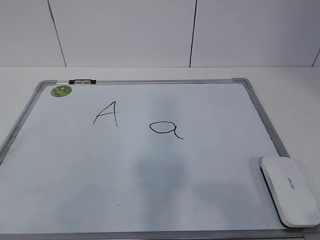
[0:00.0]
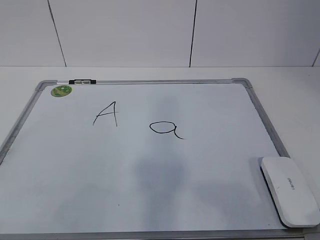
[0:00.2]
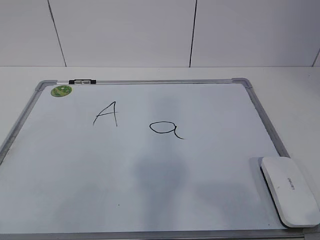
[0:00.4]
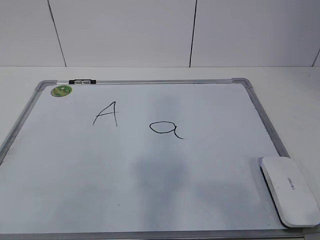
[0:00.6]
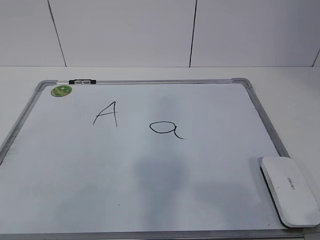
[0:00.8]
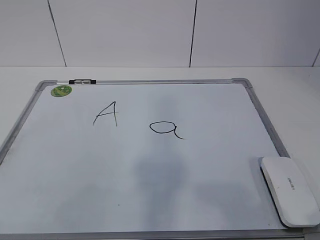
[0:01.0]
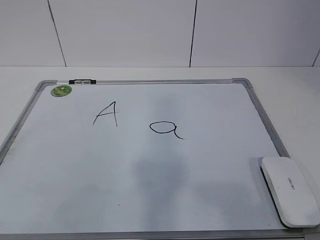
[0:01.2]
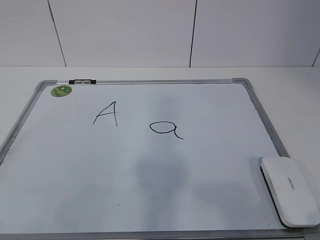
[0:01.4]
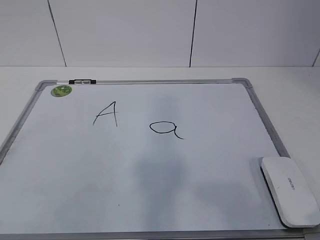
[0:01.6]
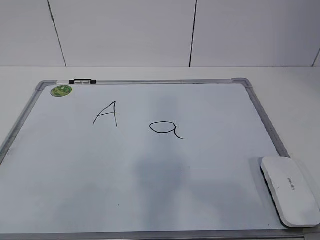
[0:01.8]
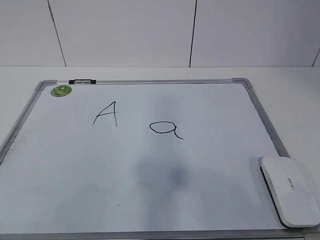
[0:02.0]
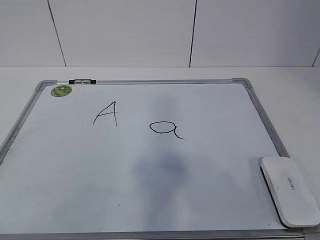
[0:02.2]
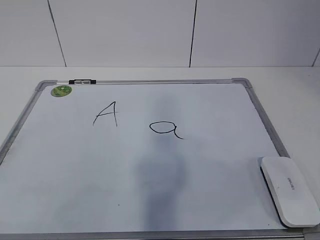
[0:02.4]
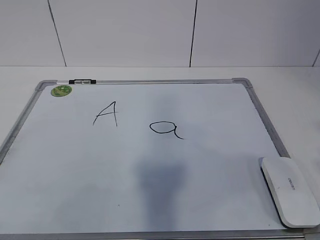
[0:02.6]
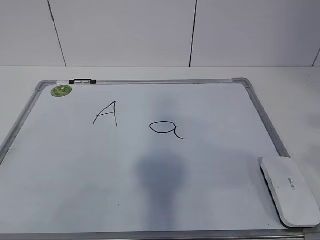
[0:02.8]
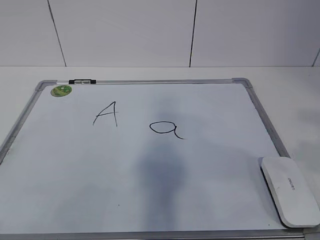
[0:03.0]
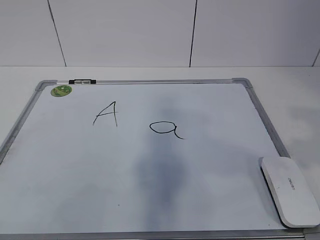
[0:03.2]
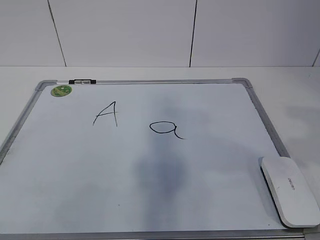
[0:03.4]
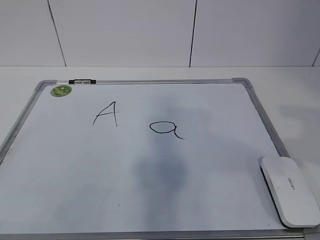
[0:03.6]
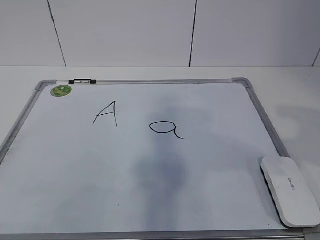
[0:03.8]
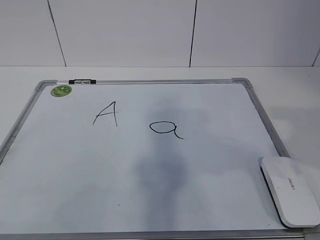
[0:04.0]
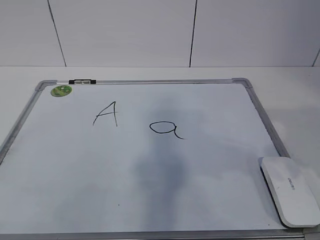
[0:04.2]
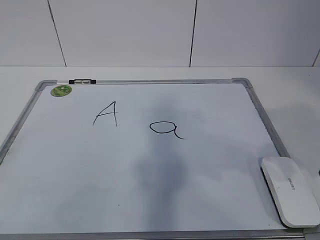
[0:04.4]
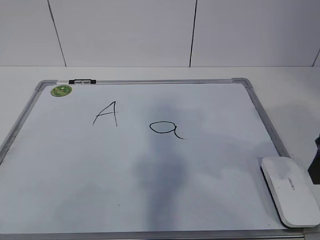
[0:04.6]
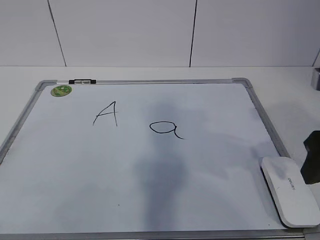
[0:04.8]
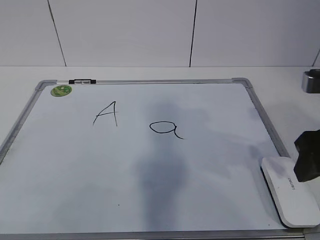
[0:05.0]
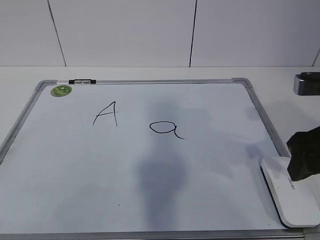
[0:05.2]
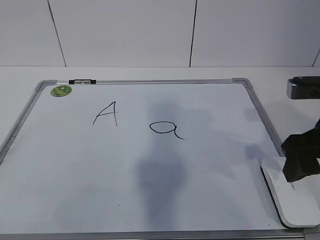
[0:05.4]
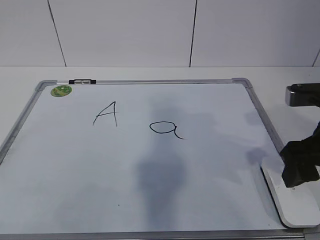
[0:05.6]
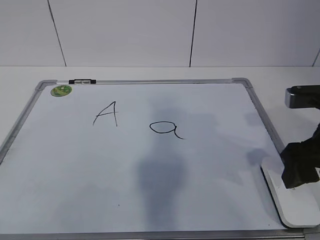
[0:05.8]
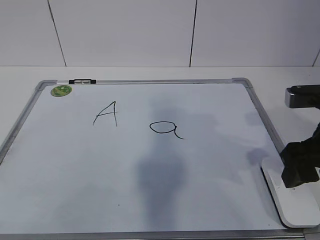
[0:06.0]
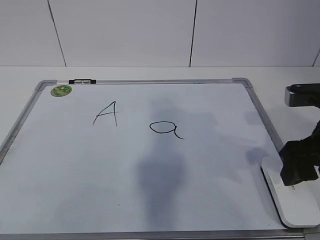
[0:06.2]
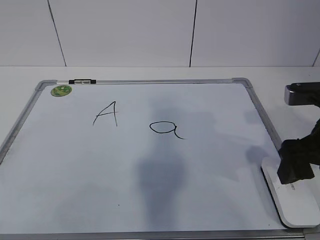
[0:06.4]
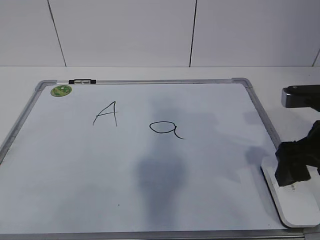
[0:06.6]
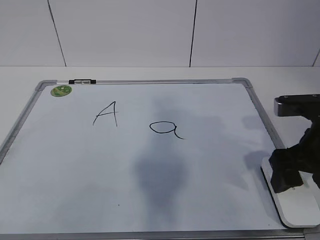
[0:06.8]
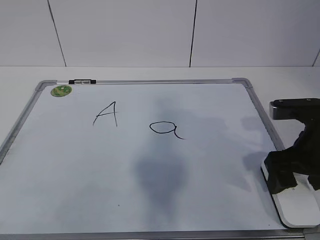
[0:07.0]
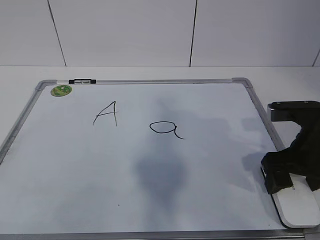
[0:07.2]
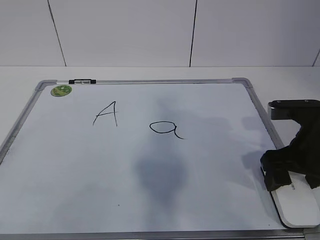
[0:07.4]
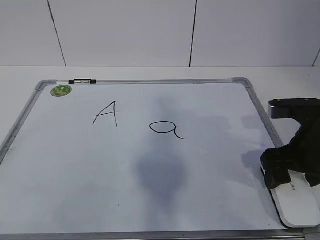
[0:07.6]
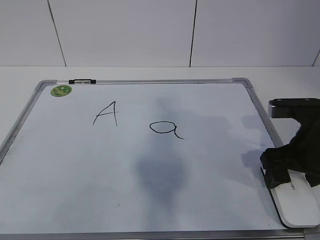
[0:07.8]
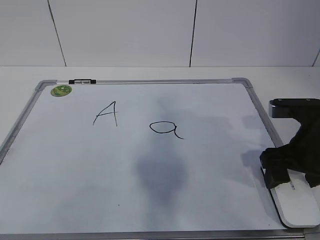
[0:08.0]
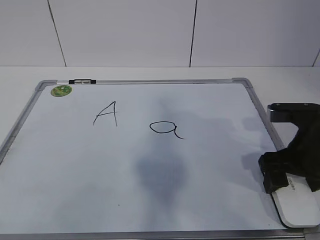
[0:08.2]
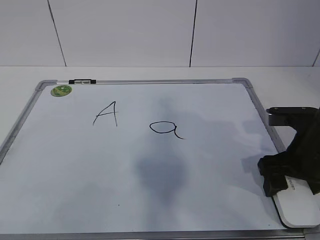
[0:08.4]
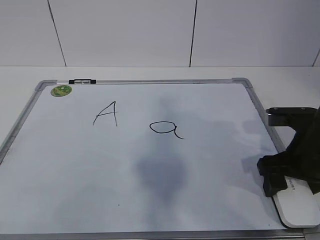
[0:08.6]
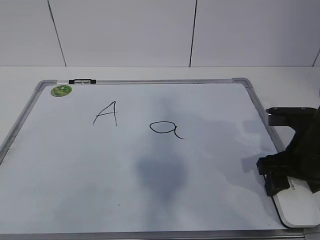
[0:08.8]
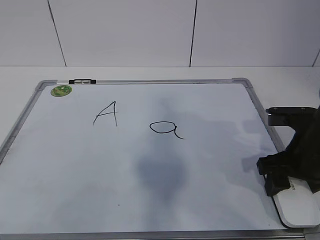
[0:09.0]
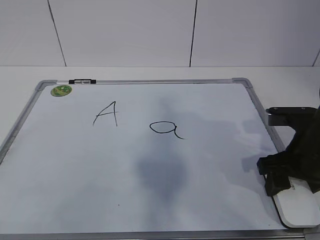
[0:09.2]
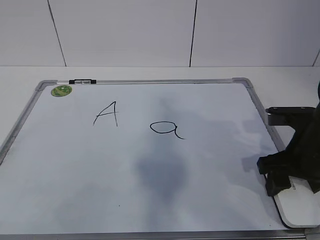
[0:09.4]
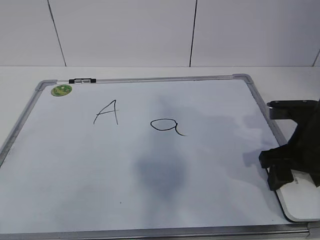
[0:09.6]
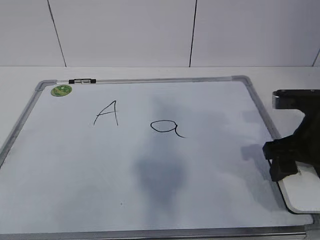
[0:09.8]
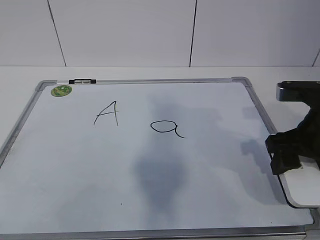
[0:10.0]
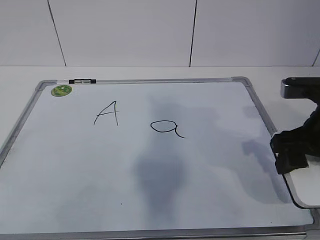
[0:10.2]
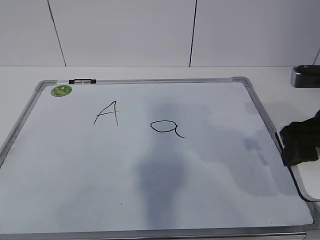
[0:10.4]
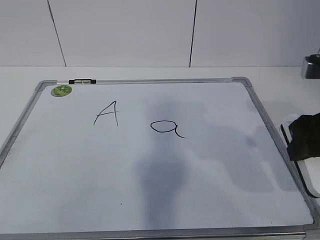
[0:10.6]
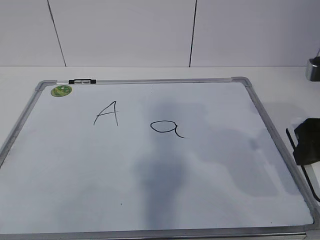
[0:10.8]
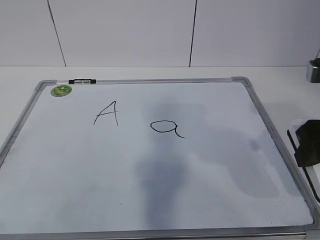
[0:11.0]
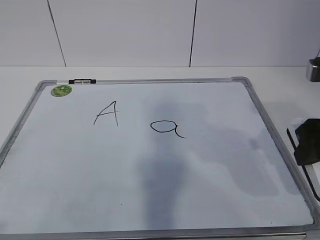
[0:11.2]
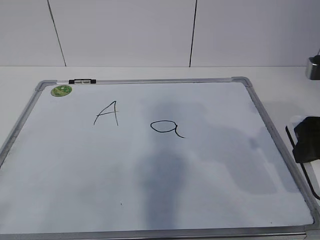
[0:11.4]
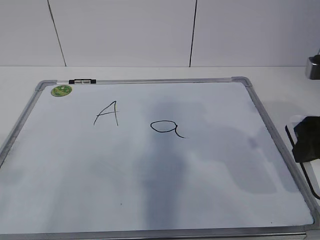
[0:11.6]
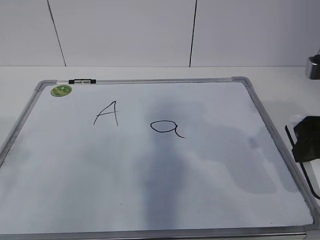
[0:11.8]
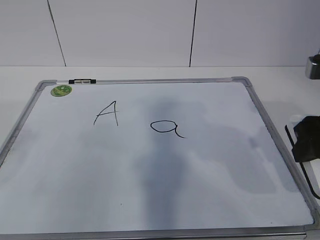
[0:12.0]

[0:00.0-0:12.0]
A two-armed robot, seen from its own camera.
Task of the whole recording: pick up the eraser on the blackboard and erase the letter "a".
Step, 0:00.0 to 0:07.8: Grab the eraser with your right hand.
0:01.6 to 0:03.0: The right gripper travels forward and upward by roughly 15 cm.
0:04.4 to 0:06.0: The right gripper moves downward and forward, approximately 10 cm.
0:06.0 to 0:07.6: The right gripper shifts by about 5 cm, and opens its fingers.
0:07.6 to 0:09.0: The right gripper closes up.
0:09.0 to 0:10.4: The right gripper is displaced upward by roughly 5 cm.

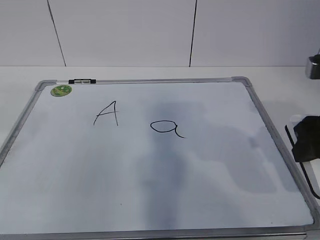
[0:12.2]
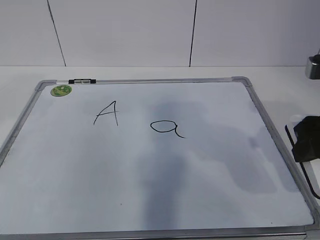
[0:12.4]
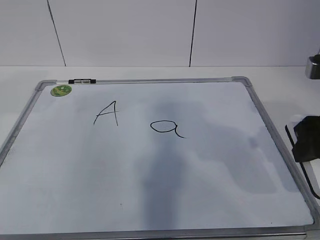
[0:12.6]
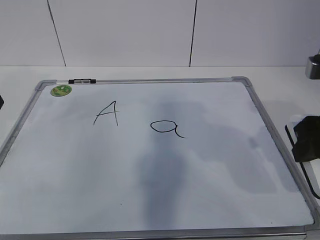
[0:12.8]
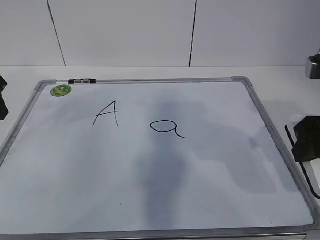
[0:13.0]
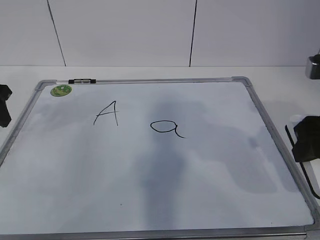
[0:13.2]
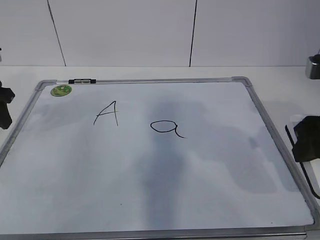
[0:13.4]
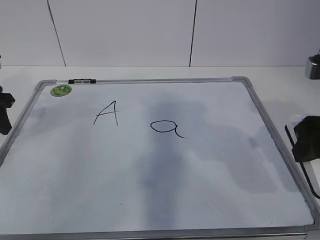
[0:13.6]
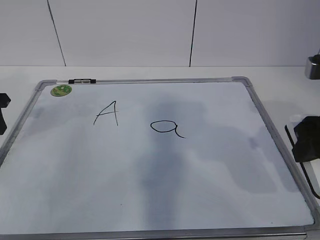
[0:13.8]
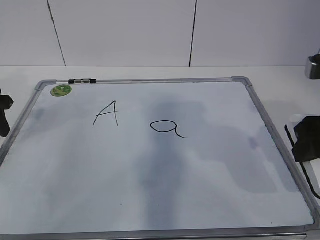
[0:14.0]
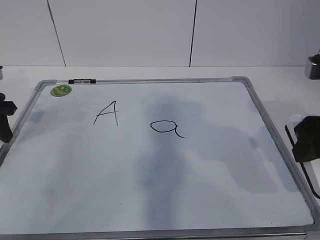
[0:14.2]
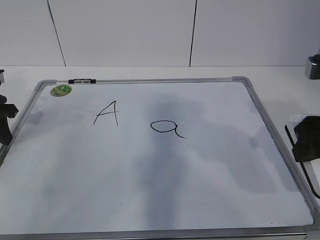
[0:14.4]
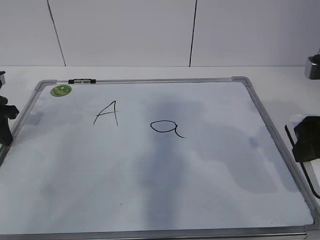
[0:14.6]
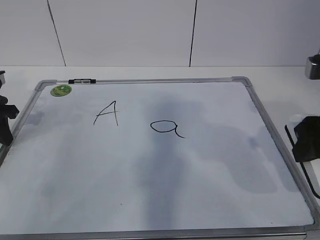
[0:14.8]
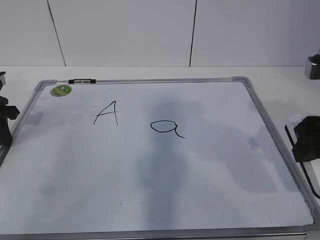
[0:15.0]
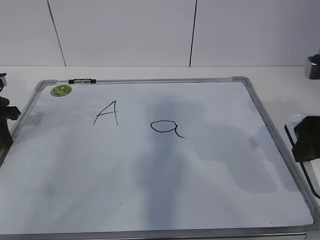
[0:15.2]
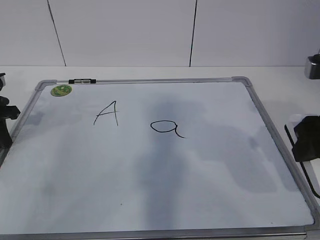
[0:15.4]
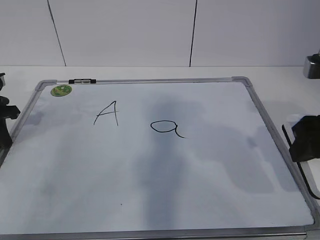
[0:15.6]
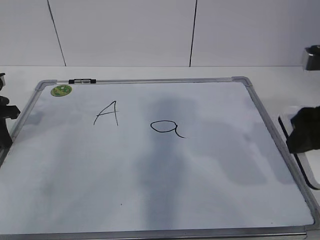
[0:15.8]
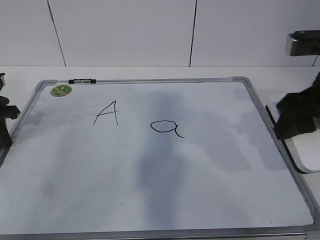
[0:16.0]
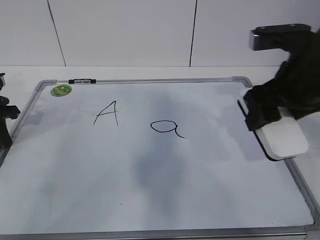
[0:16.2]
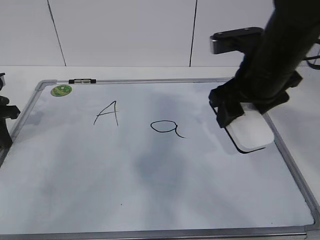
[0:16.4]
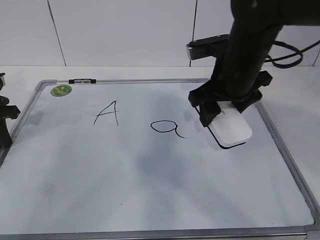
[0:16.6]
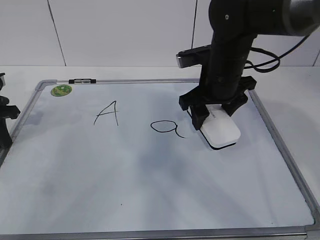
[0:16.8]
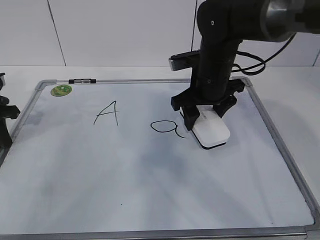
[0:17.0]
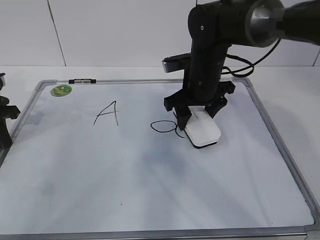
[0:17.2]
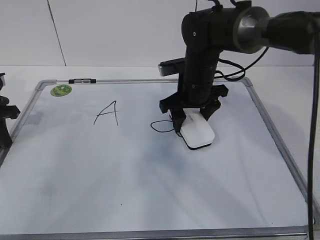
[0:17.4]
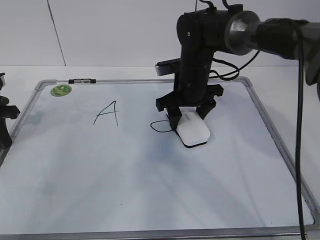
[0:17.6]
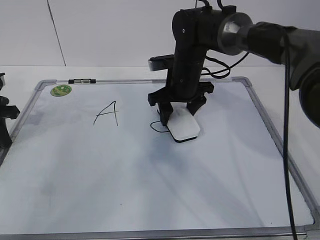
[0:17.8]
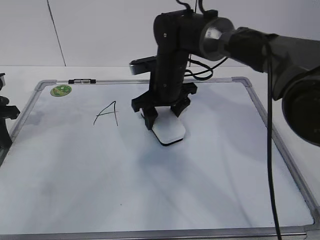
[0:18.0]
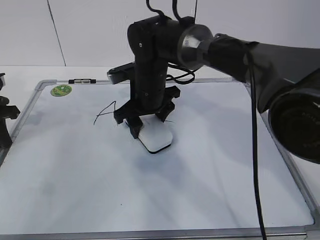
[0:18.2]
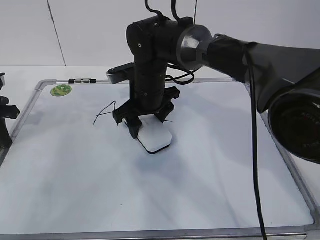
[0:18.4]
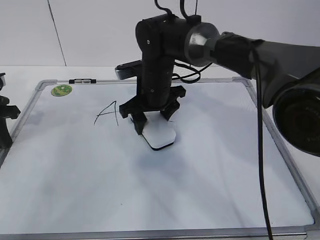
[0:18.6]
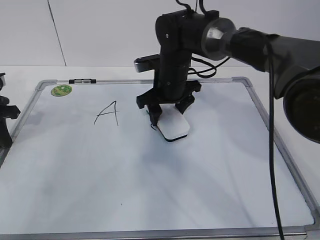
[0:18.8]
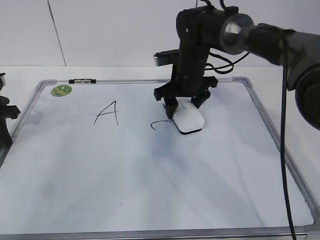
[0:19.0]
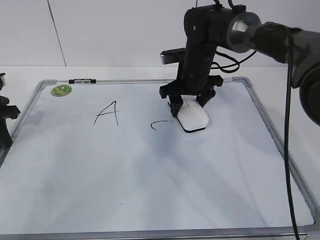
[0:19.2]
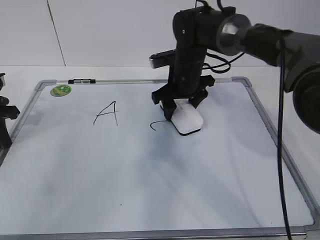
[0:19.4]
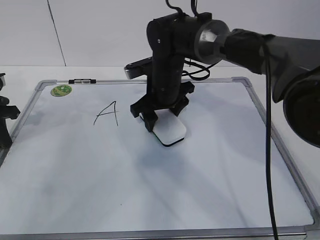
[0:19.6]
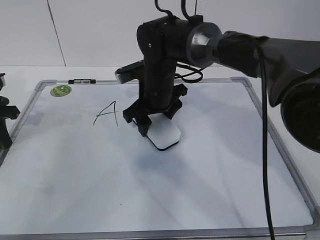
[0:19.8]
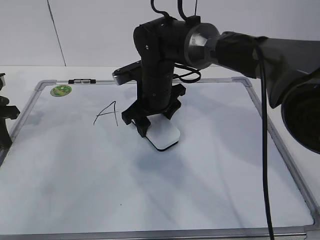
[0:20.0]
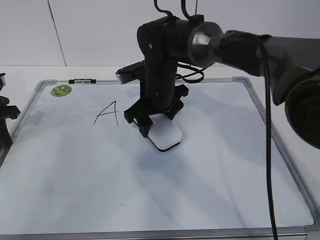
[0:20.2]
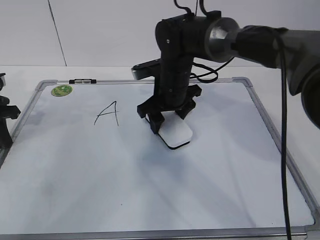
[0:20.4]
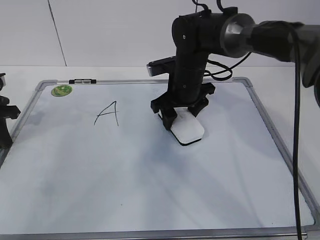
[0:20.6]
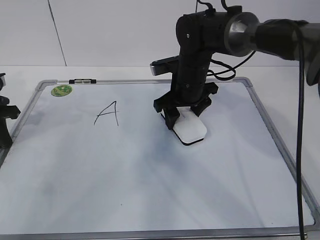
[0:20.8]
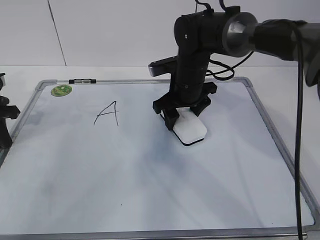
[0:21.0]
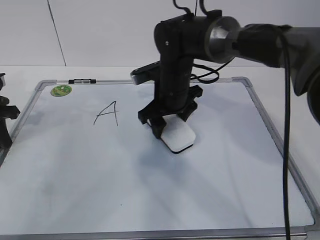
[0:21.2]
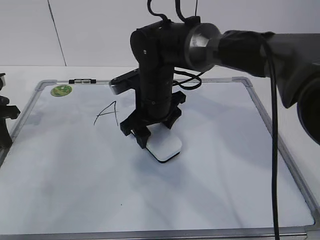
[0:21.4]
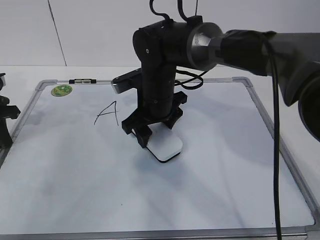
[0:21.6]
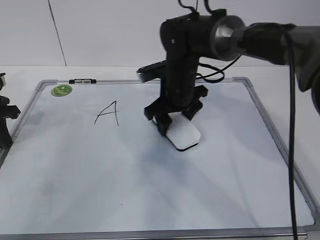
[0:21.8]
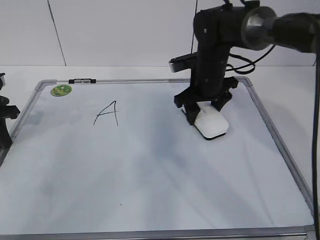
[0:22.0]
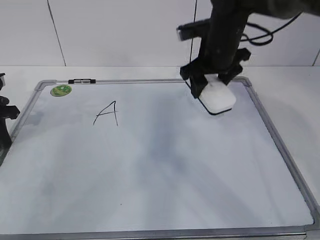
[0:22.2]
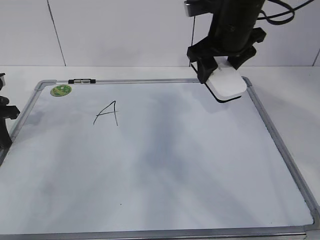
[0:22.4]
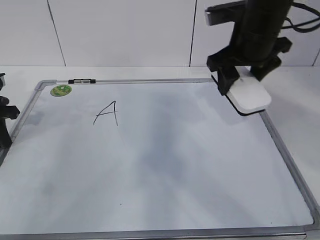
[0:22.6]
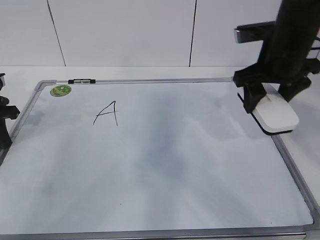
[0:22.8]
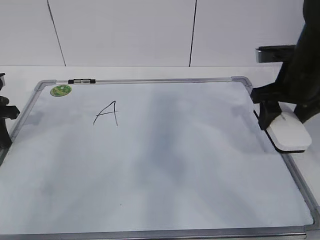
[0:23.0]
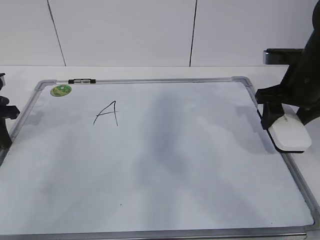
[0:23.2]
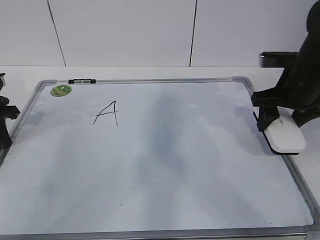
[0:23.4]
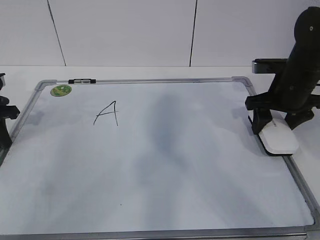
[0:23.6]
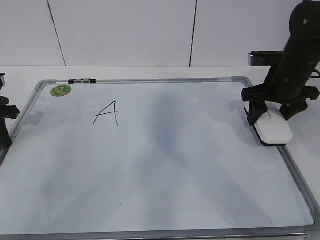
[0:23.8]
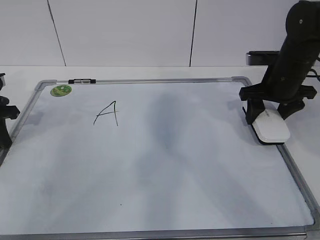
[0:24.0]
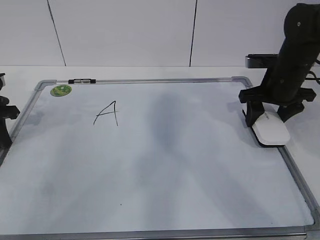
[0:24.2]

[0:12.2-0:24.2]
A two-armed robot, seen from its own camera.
Task of the whole recording: pick up the eraser on the blackboard and erase the letter "a".
Step, 0:12.8 to 0:18.2: Erase the letter a with your right hand.
Step, 0:18.4 to 0:21.2: Put down the eraser with your right hand.
0:12.2 to 0:13.8: The left gripper shifts approximately 20 cm forward and downward.
0:13.8 to 0:15.2: The left gripper closes up.
0:15.2 to 0:16.6: The right gripper shifts roughly 15 cm forward and to the left.
0:16.6 to 0:18.2: The right gripper heads to the left, downward and forward, covering some 15 cm.
0:18.2 to 0:19.8: The right gripper moves approximately 10 cm to the right and comes back.
0:21.2 to 0:22.6: The right gripper is displaced upward and to the right by about 15 cm.
0:22.6 to 0:24.2: The right gripper shifts roughly 15 cm downward and to the right.
